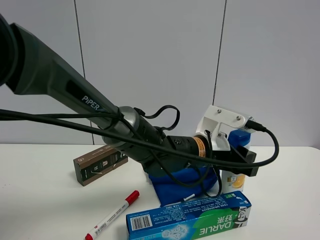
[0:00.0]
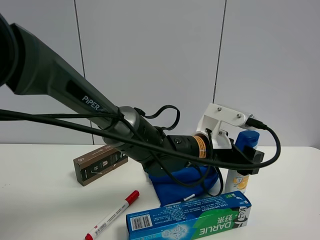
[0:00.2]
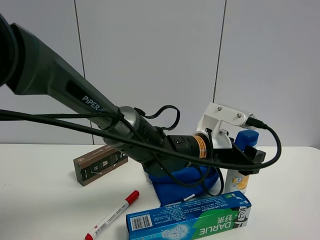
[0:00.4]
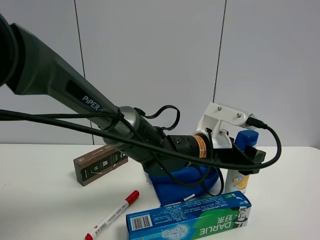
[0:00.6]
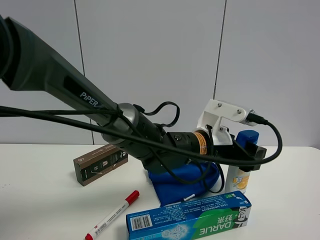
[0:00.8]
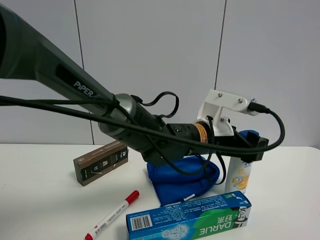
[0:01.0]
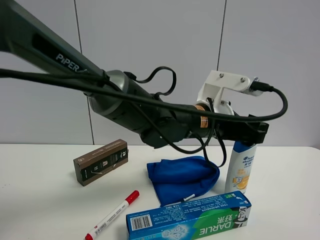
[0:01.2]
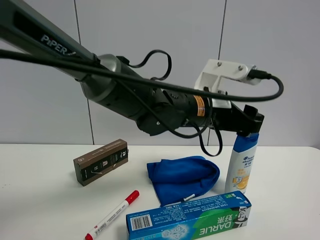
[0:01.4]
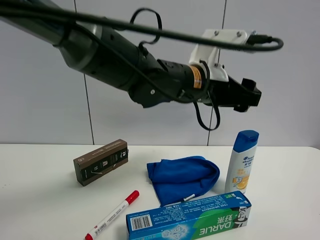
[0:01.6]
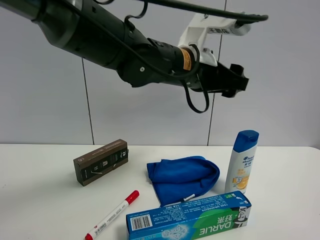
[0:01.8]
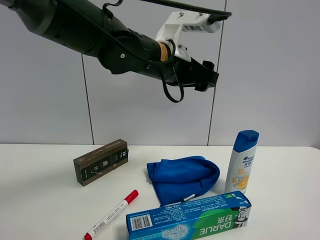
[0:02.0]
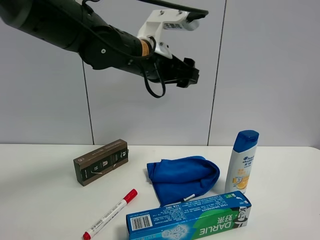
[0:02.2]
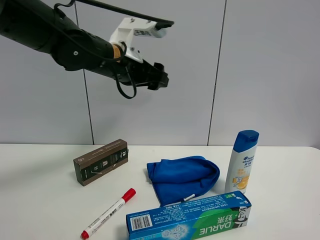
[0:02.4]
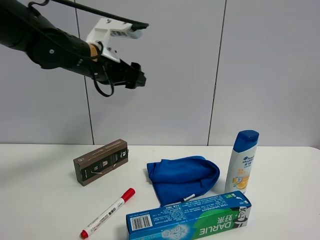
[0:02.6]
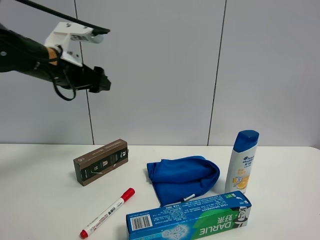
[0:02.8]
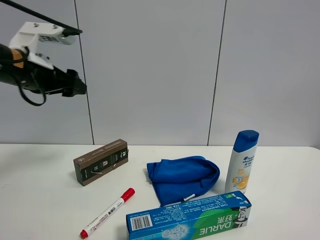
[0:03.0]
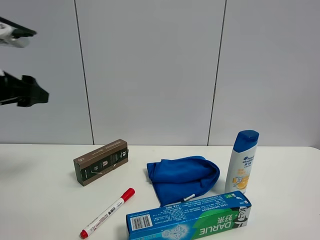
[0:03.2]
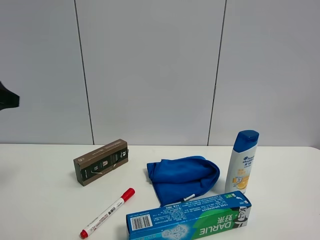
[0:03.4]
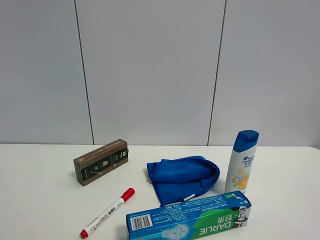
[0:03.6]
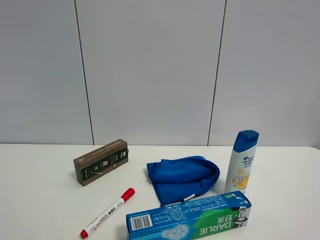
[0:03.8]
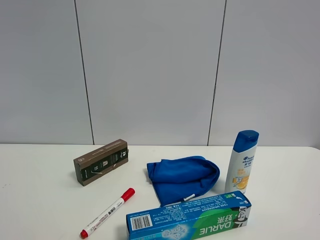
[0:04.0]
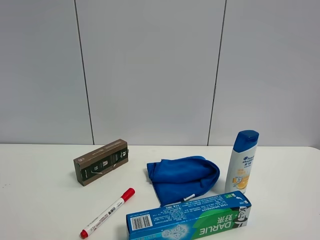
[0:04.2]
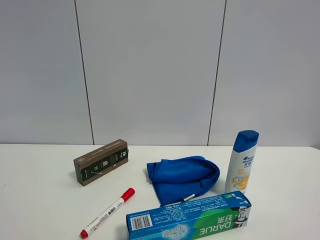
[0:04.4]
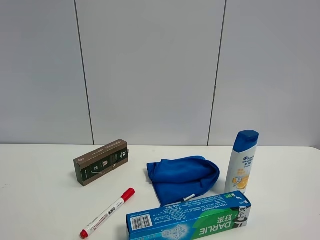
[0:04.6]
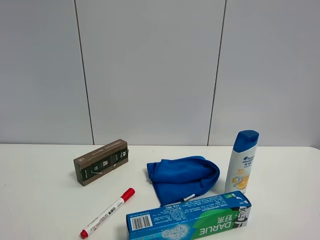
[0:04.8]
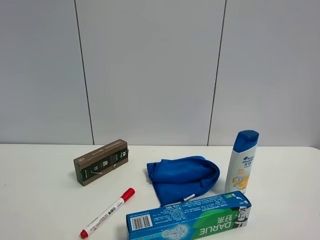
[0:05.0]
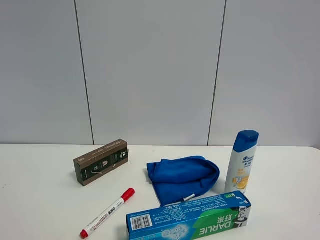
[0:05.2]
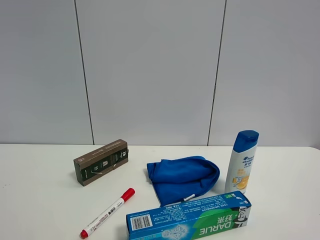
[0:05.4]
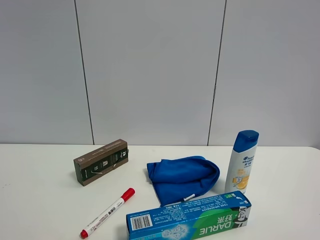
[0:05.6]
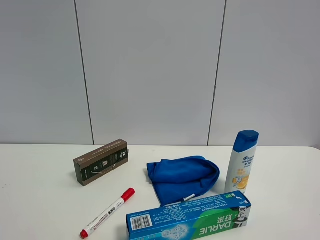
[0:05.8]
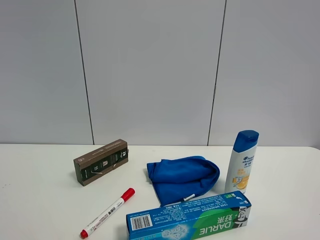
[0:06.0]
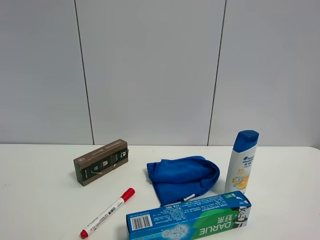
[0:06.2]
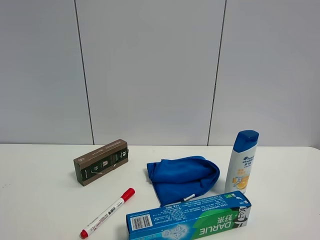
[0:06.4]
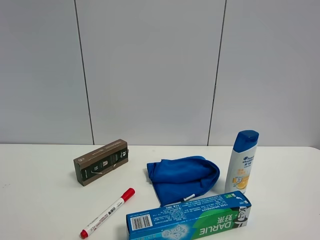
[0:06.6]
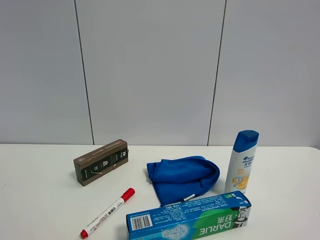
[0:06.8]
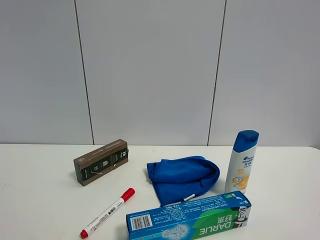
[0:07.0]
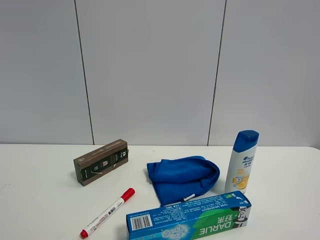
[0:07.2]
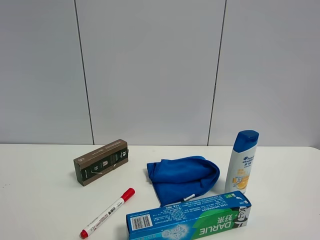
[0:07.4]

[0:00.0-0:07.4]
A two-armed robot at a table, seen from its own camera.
Task of the whole recording: the gripper move the object.
0:00.0 to 0:01.4: The left gripper heads upward, covering about 10 cm.
0:01.4 to 0:03.0: The left gripper moves to the left, some 30 cm.
0:03.0 to 0:04.4: The left gripper shifts approximately 35 cm backward.
0:06.0 to 0:07.4: The two grippers keep their place.

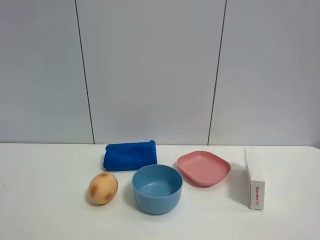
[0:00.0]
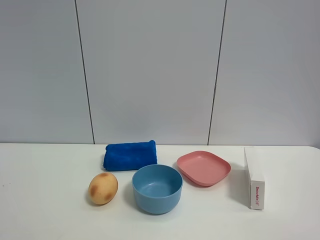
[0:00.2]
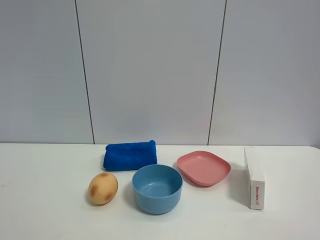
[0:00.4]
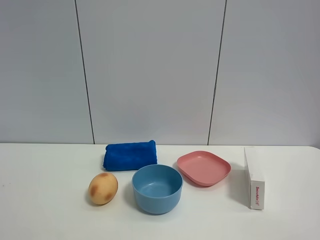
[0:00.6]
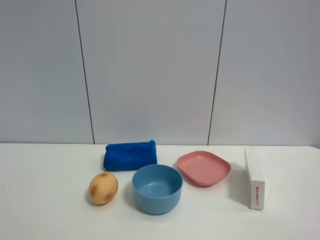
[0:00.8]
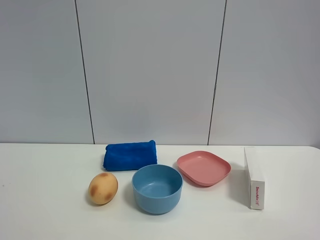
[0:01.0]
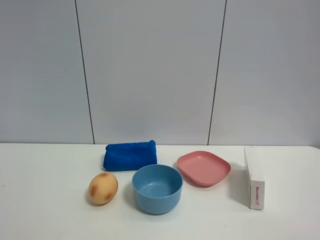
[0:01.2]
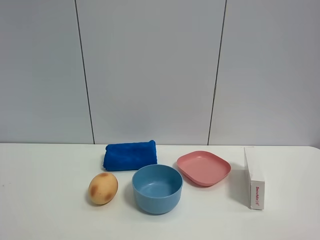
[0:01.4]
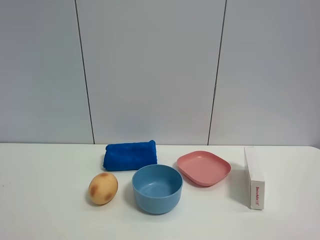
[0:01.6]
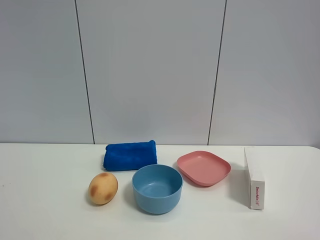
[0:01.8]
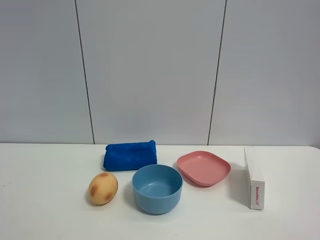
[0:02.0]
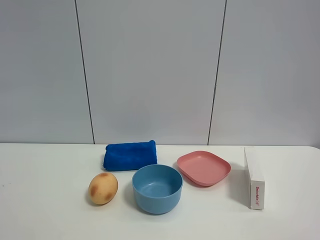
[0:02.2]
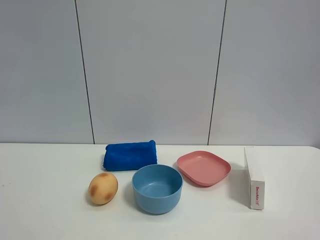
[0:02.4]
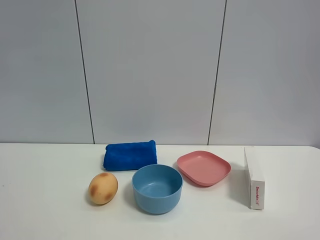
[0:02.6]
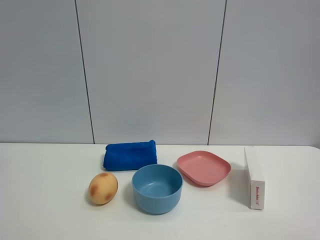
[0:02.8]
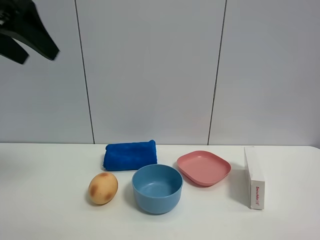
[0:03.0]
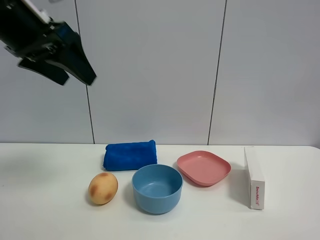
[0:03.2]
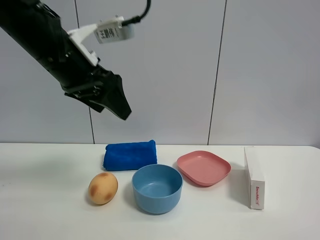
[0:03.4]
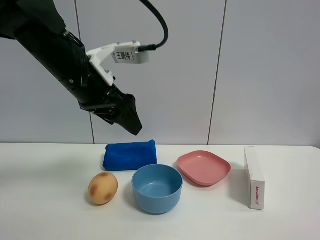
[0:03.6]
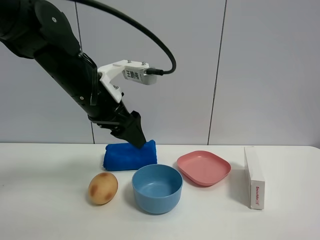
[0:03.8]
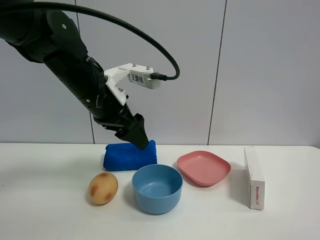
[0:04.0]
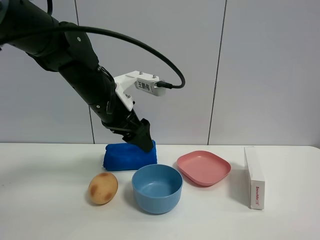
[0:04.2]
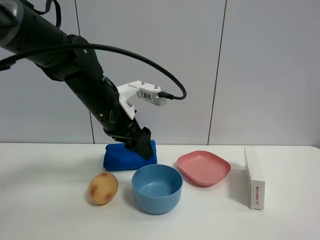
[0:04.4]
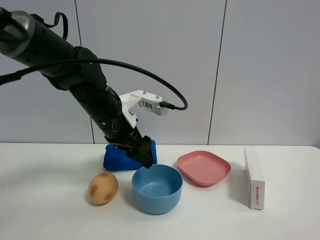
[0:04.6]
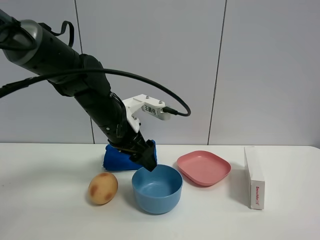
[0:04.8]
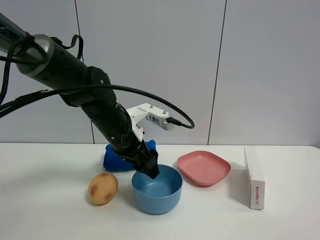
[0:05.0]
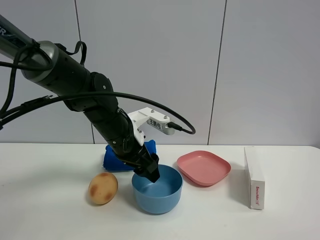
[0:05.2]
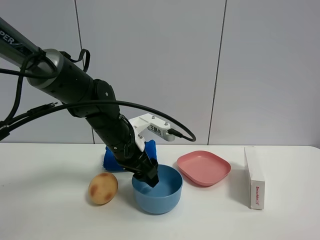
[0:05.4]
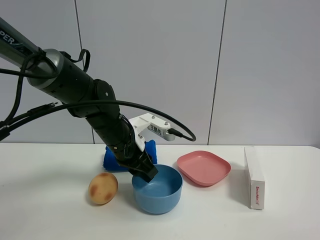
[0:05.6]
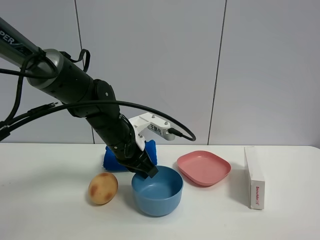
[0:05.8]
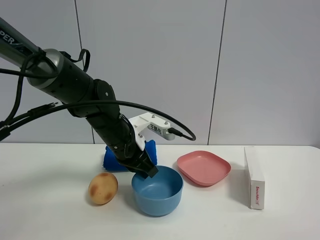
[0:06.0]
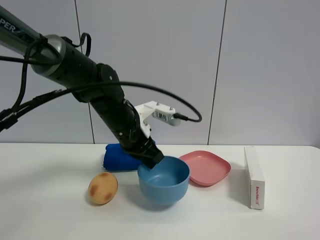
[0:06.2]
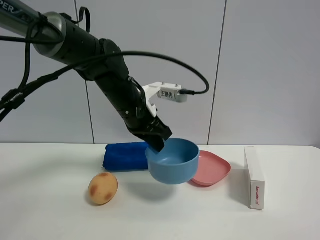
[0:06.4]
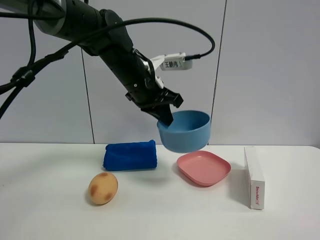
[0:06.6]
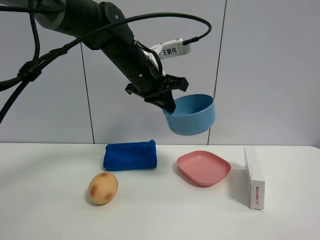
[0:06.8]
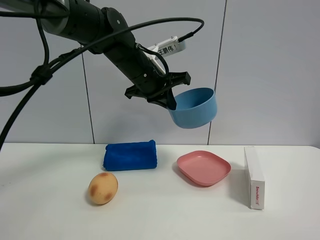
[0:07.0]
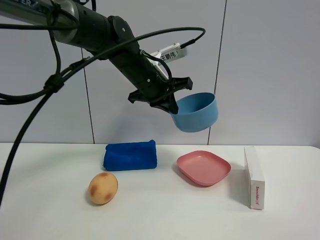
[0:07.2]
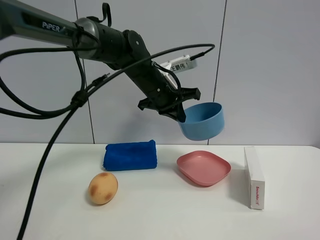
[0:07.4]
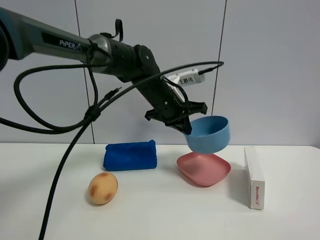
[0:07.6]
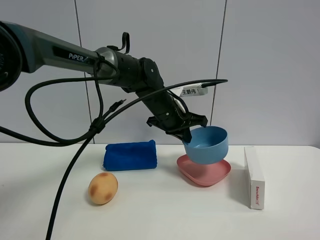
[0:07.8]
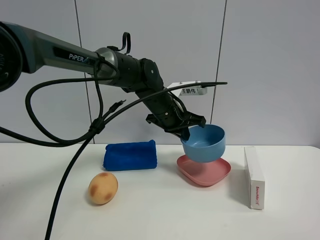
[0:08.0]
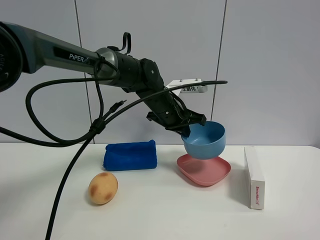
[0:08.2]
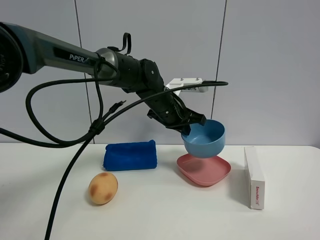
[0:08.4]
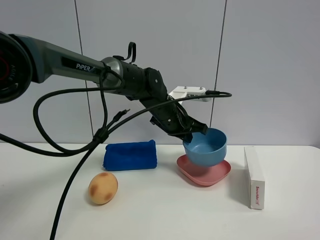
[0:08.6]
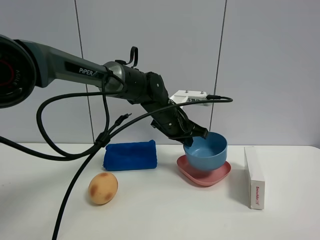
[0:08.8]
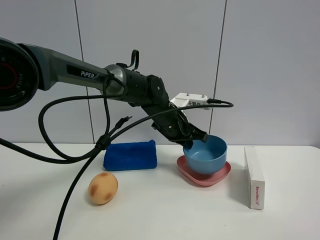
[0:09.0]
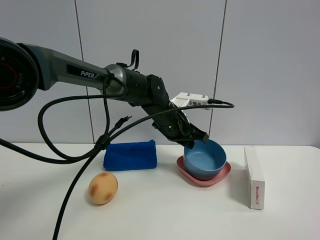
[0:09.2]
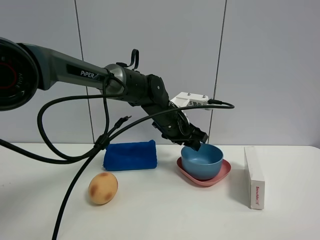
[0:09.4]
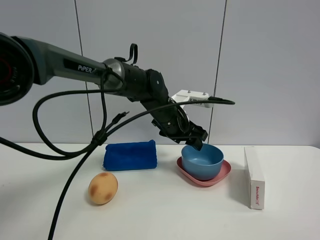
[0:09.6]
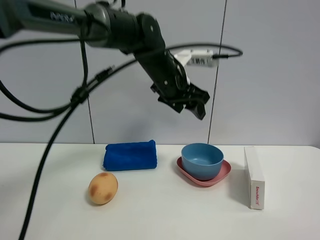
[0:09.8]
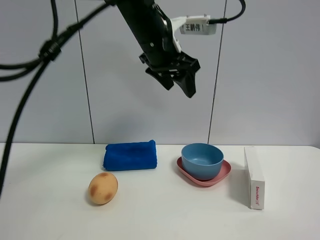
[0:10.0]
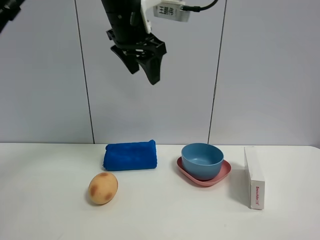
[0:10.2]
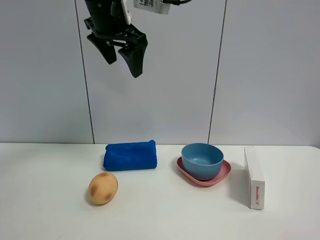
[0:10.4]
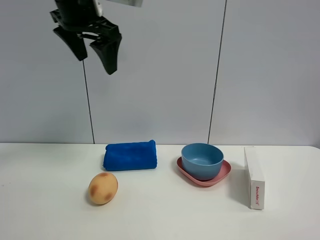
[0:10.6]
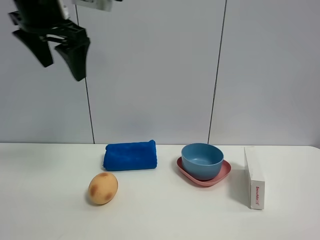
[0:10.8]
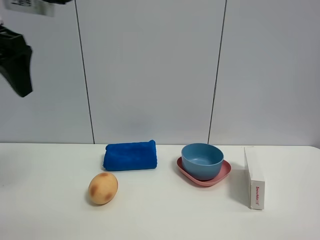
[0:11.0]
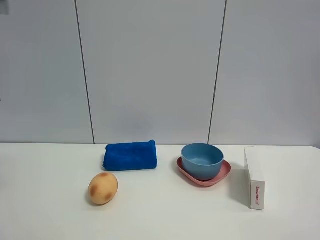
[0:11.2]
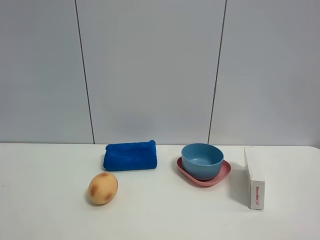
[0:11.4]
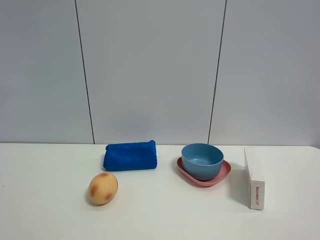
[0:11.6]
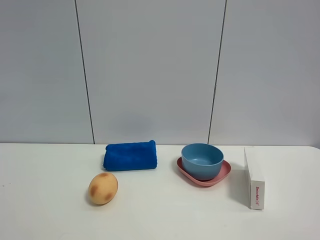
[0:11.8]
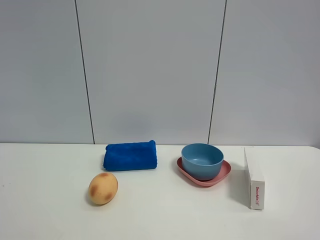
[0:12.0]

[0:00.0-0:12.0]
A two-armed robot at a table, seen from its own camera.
Task of the whole recording: the gripper move the object.
Step, 0:00.0 to 0:06.0: Grasp the blue bowl with the left gripper.
Step, 0:06.2 to 0:09.6: Place the blue bowl into the pink plate with the left gripper.
0:00.0 to 0:01.6: Neither gripper changes place.
0:01.6 to 0:03.0: The left gripper goes roughly 30 cm forward.
0:03.0 to 0:04.4: The left gripper shifts some 25 cm downward, to the right and forward.
0:04.4 to 0:06.0: The left gripper shifts some 5 cm downward, and closes up.
0:06.0 to 0:07.6: The left gripper is displaced to the right, forward and upward by roughly 10 cm.
0:09.0 to 0:10.4: The left gripper moves upward and to the left, about 25 cm, and opens.
0:10.4 to 0:12.0: The left gripper shifts roughly 40 cm backward and to the left.

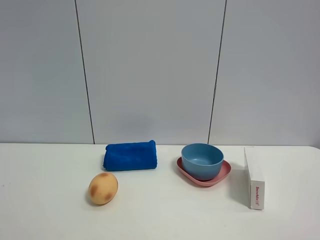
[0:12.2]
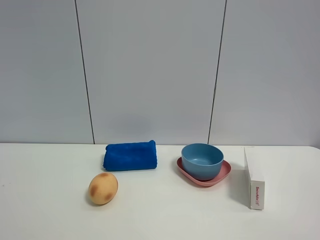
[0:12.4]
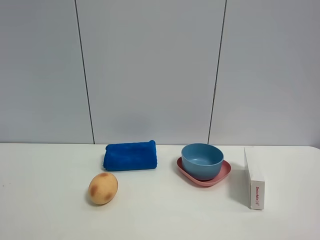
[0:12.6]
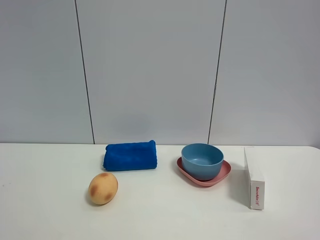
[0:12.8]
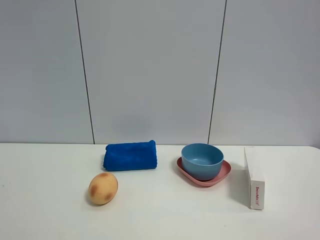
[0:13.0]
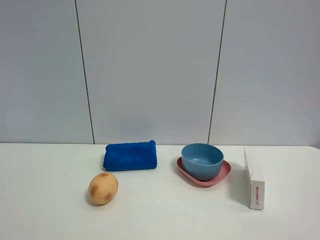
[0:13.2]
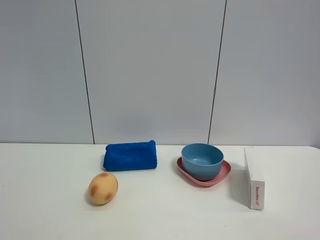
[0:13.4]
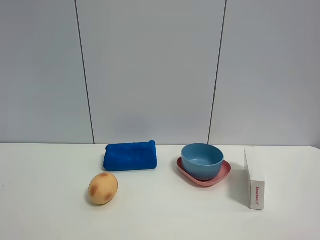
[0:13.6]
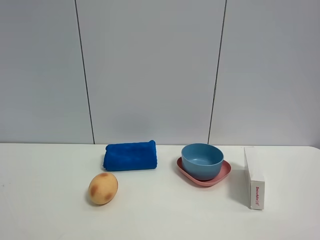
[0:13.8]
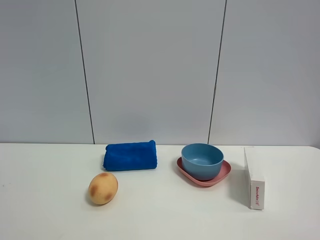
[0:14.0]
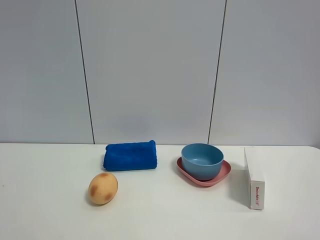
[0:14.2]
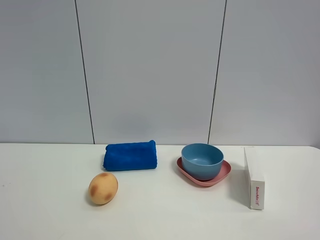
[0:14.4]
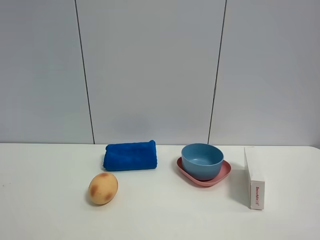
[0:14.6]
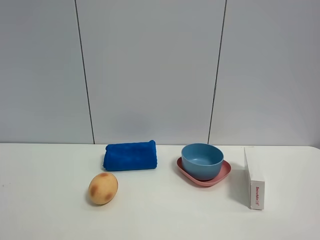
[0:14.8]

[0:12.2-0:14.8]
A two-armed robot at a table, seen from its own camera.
Task of the whole recording: the gripper move the object.
0:13.4 to 0:14.8: Neither gripper changes place.
